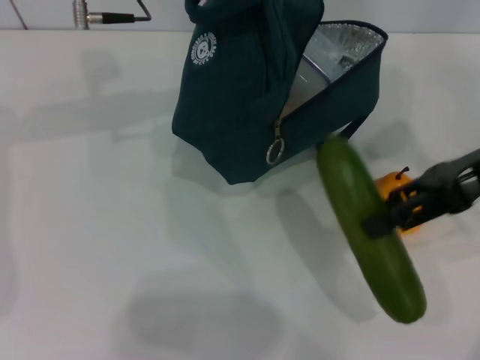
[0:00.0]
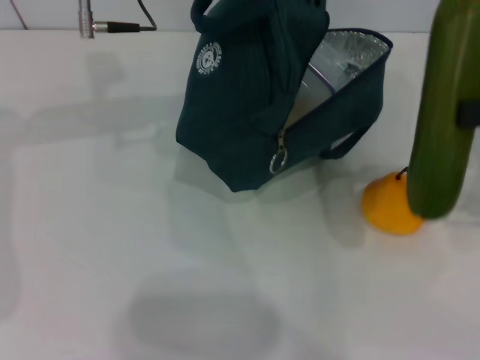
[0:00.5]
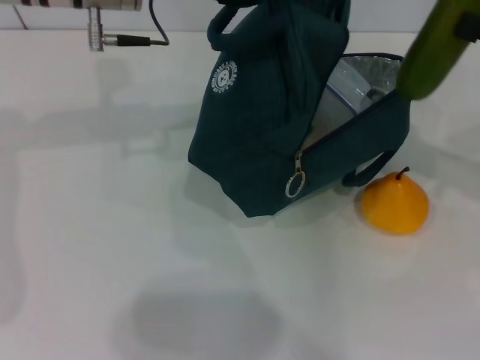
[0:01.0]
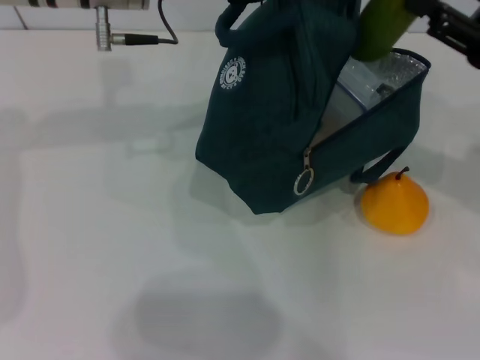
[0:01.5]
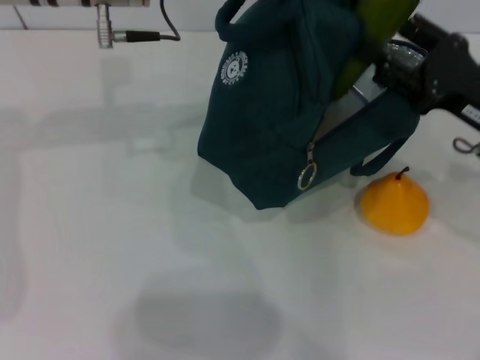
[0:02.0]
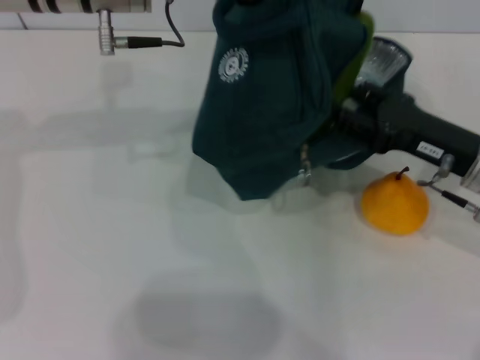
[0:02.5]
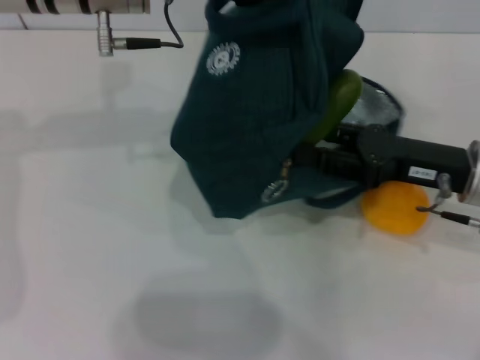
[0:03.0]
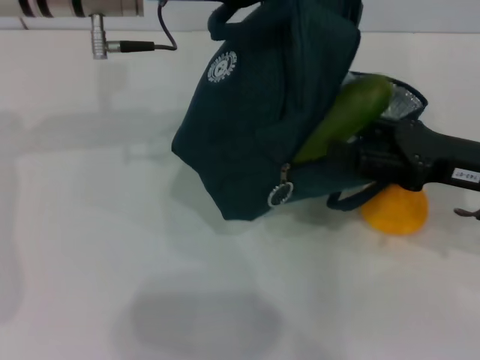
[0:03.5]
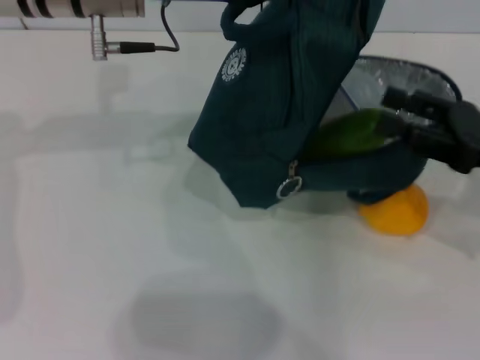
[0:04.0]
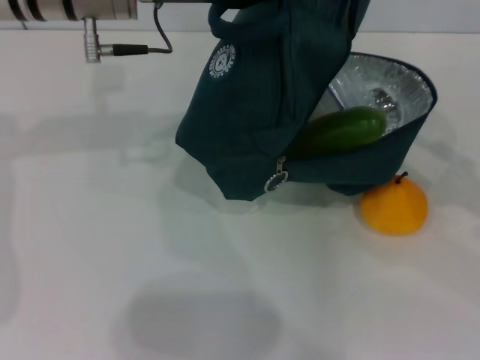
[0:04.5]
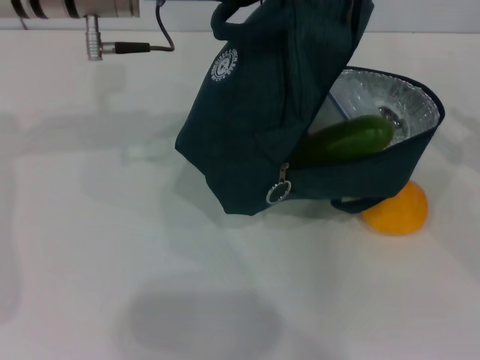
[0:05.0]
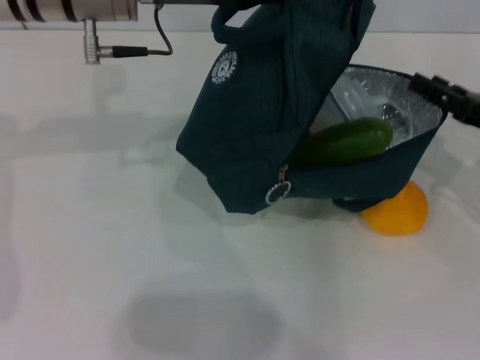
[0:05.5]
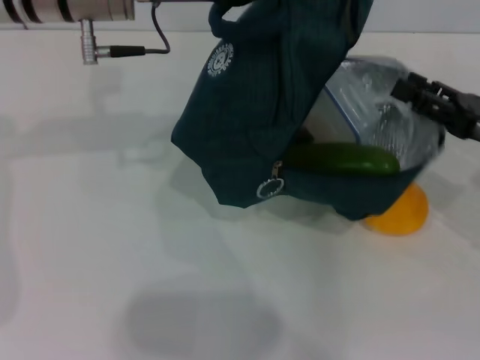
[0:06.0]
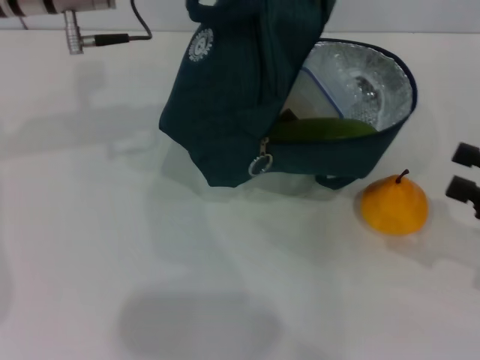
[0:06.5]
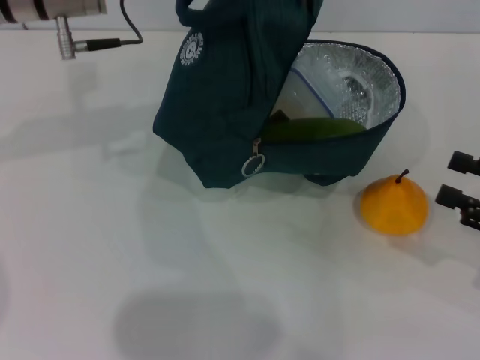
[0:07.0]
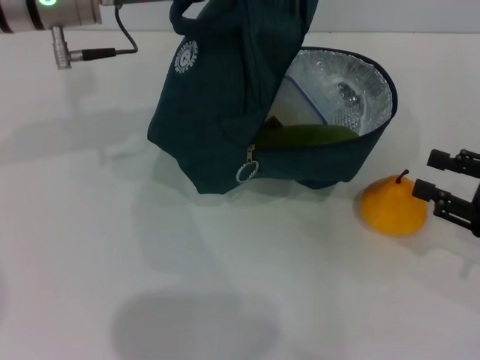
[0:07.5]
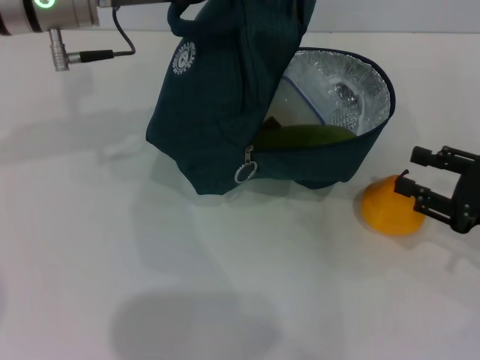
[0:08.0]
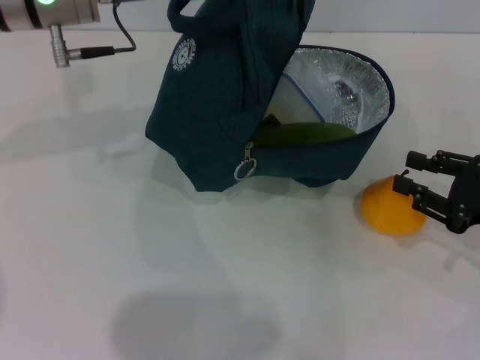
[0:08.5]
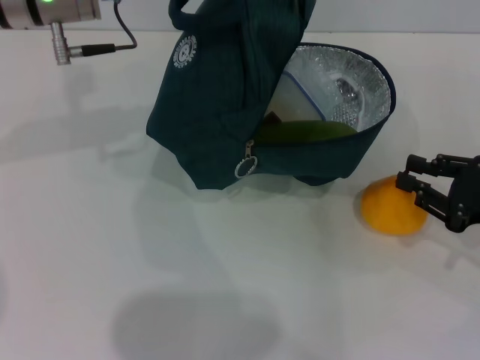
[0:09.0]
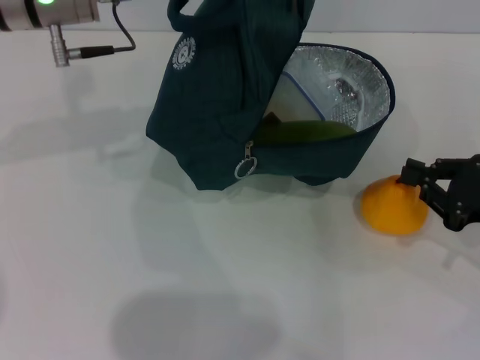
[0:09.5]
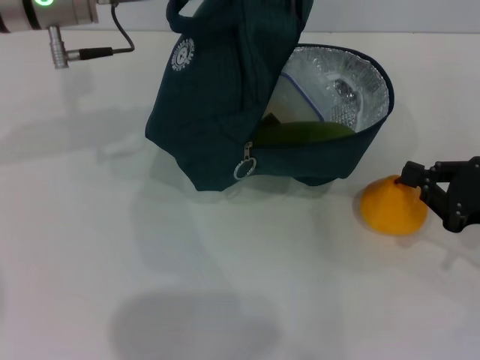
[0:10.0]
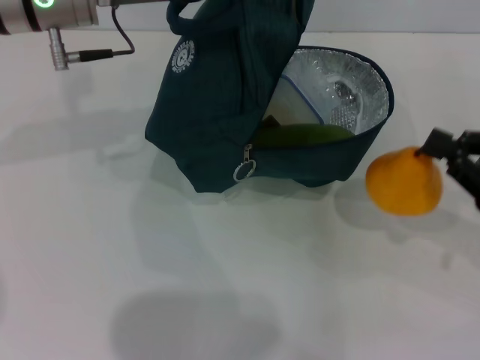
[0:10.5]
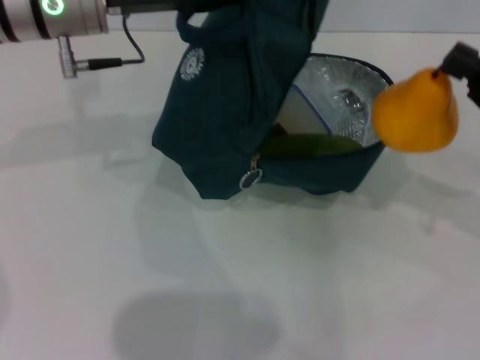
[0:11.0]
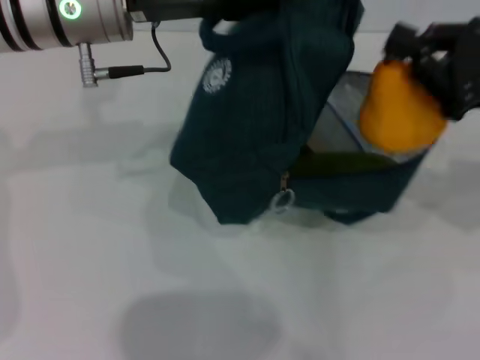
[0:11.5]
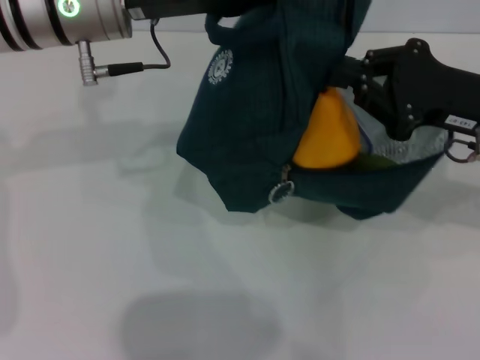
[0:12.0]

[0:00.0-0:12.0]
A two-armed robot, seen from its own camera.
Step, 0.0 to 3.5 s: Put the cucumber into the lunch bag with your right hand.
Step, 4.0 to 9.5 s: Grab the pear with your right hand.
0.0 to 2.0 s: The right gripper heads downward, covering approximately 10 cm.
4.0 to 6.0 s: The right gripper travels to the right and back again, roughly 10 cm each way.
8.0 to 10.0 s: The right gripper closes.
10.0 to 12.0 s: The right gripper is displaced upward, to the left and forward by about 15 cm.

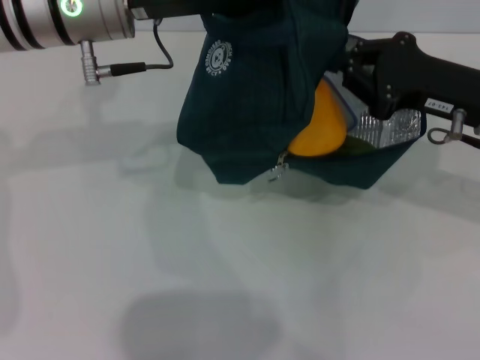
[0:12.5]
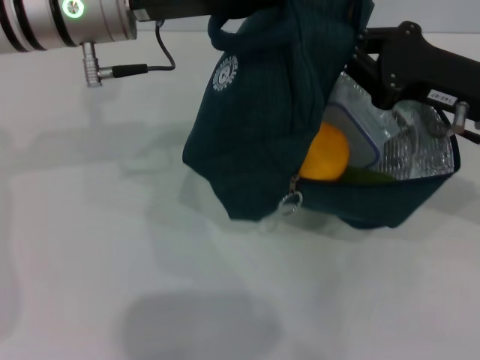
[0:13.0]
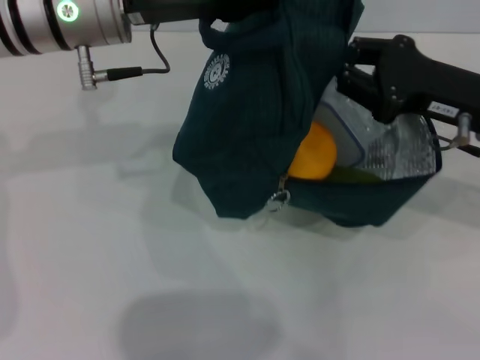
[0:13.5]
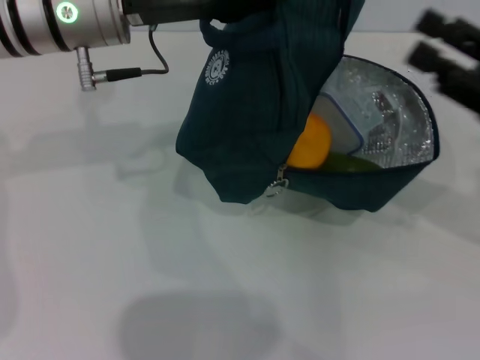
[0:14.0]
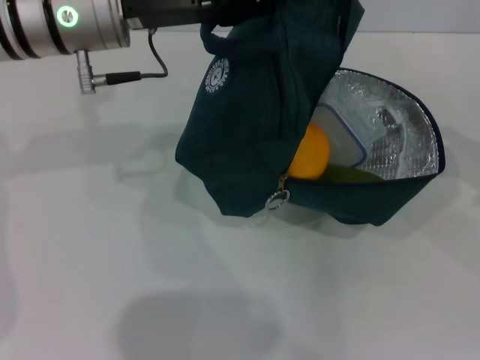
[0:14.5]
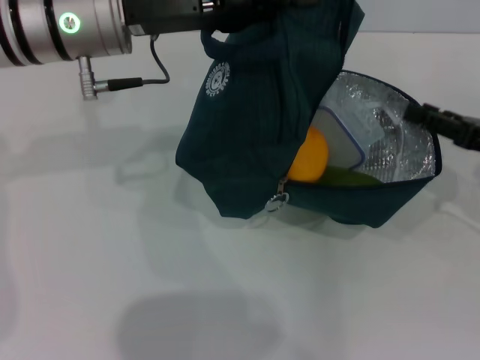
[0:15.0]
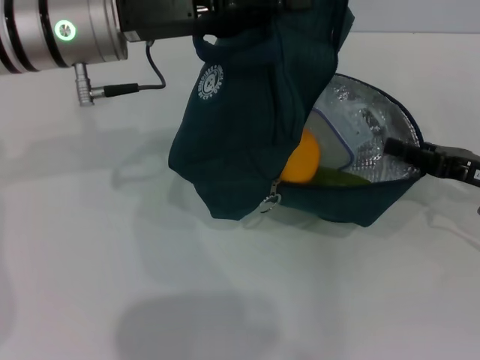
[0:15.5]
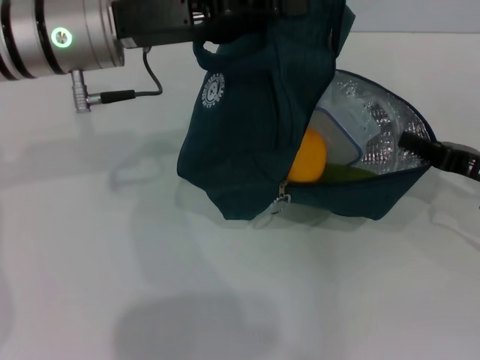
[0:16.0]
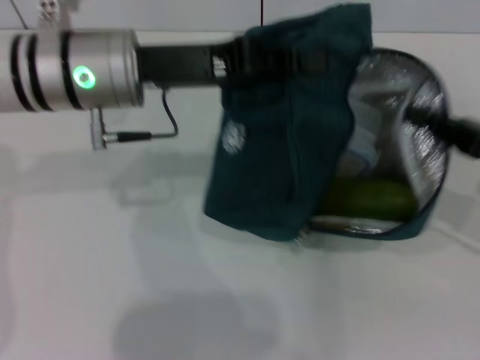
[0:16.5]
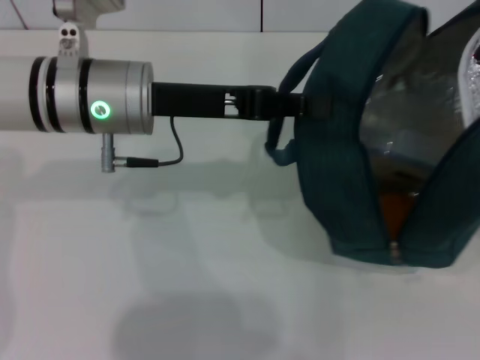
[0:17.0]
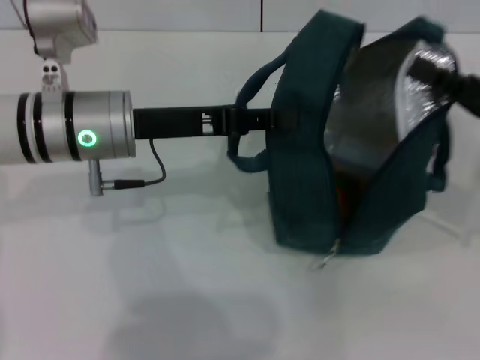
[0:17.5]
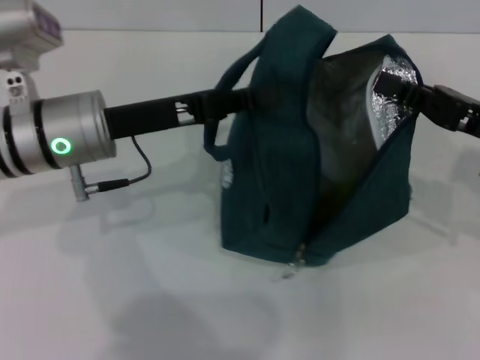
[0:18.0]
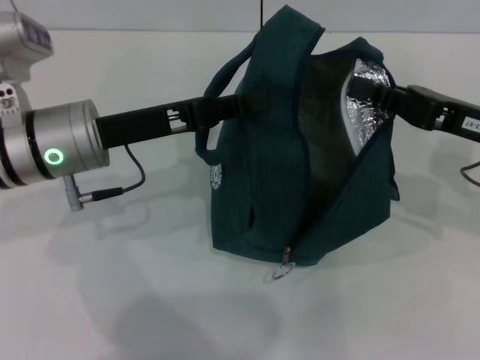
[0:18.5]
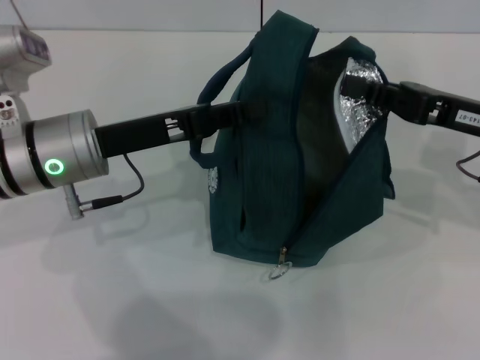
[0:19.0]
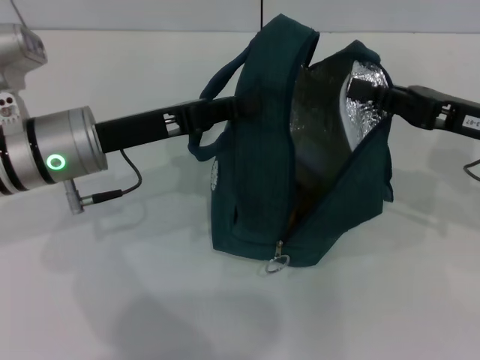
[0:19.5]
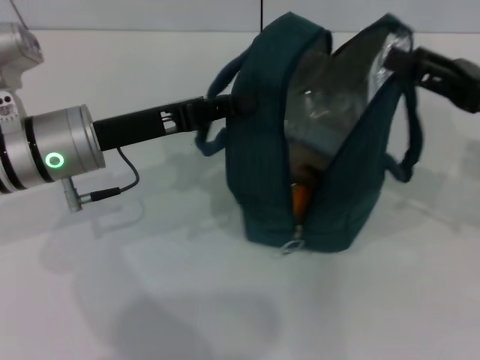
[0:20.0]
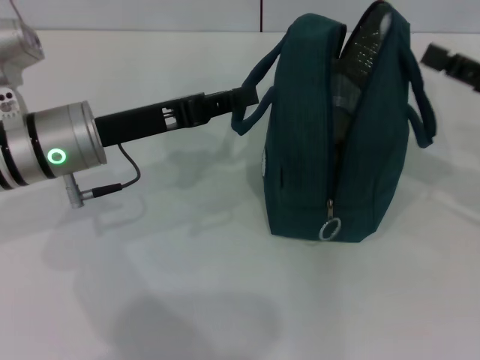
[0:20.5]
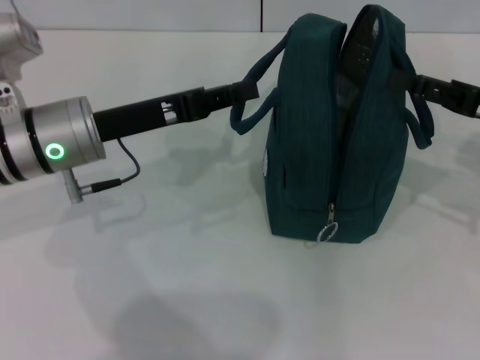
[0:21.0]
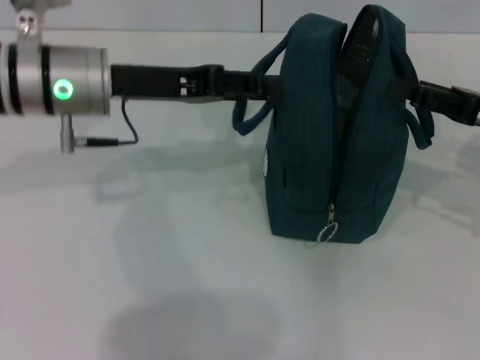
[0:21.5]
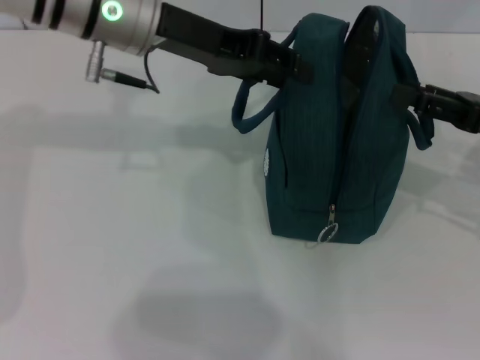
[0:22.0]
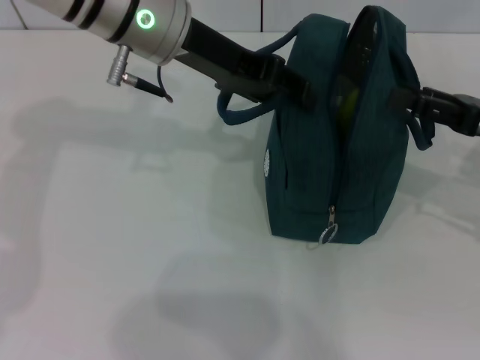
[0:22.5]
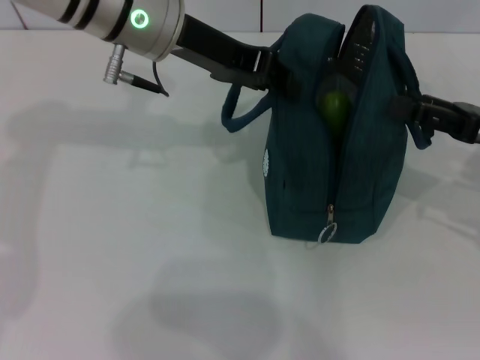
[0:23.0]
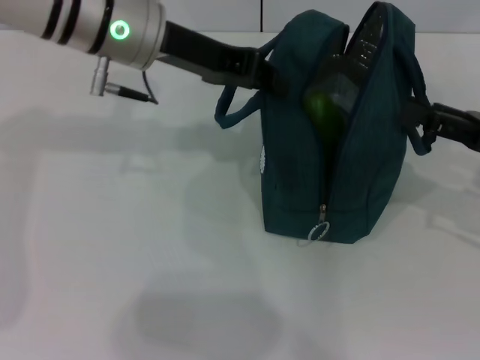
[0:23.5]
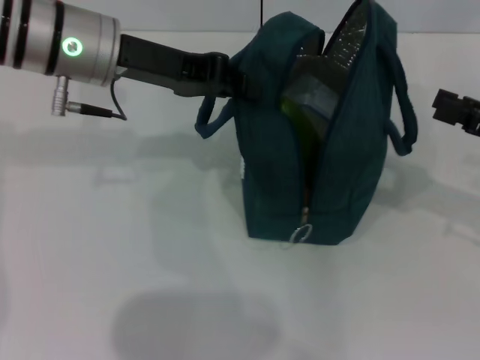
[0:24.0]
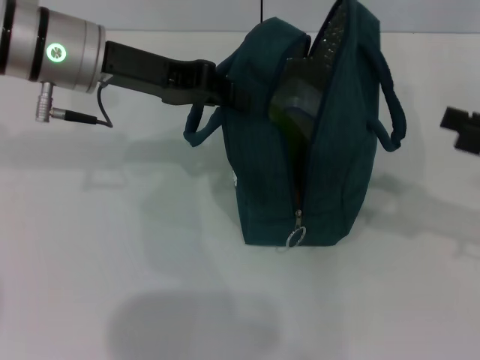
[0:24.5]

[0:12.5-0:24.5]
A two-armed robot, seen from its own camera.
Step, 13.5 to 20.0 s: Hold the lunch bag with your right hand.
12.5 to 14.5 s: The right gripper is displaced to the right by approximately 15 cm, and opens its fingers.
14.5 to 16.5 s: The right gripper moves to the left, roughly 5 cm, and closes up.
16.5 to 18.5 s: The left gripper goes some 5 cm downward. The right gripper ends up some 5 cm from where it was.
18.5 to 20.5 s: The right gripper goes some 5 cm to the right, and opens up.
20.5 to 22.5 s: The left gripper heads upward, to the right and forward, covering approximately 15 cm, and opens up.
22.5 to 24.5 s: The left gripper heads to the left, covering roughly 5 cm, and closes. Meanwhile the right gripper changes place by about 5 cm.

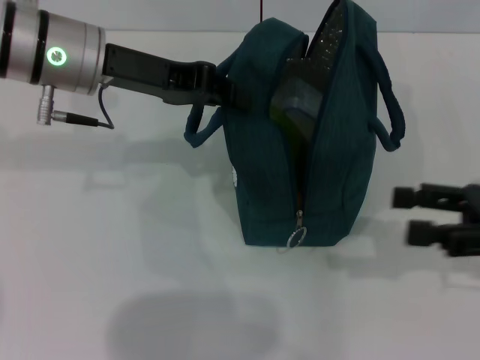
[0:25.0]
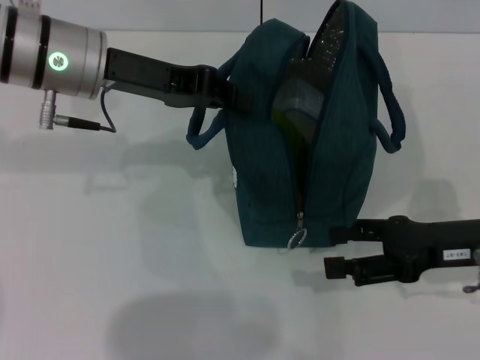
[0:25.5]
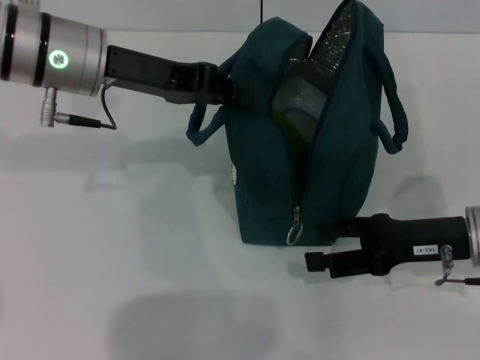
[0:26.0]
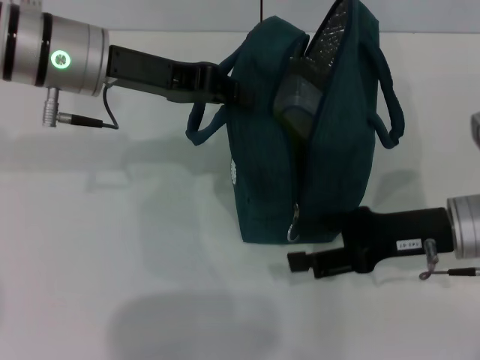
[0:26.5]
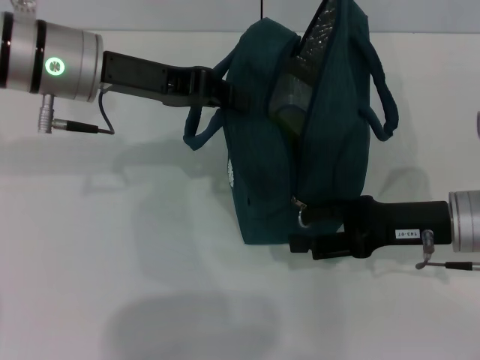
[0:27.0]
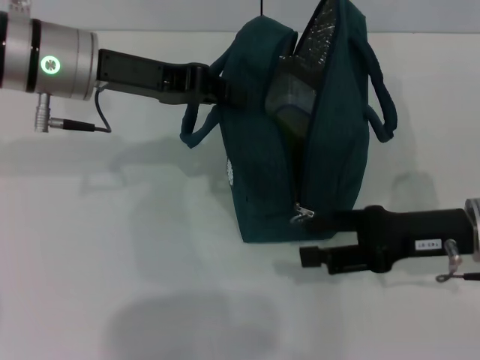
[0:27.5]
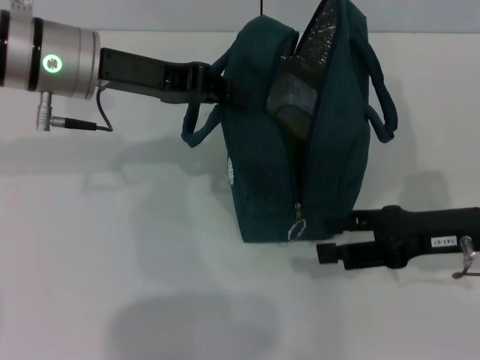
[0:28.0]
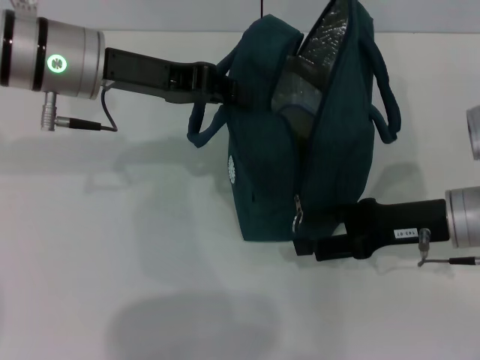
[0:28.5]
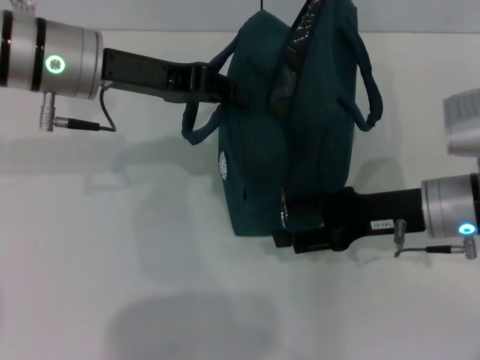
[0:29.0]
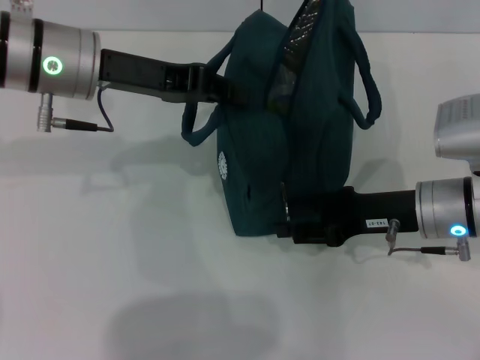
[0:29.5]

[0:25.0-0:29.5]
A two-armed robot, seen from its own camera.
25.0 to 27.0 s: The right gripper moves to the left and downward, roughly 10 cm.
27.0 to 29.5 s: The grippers move only a little.
